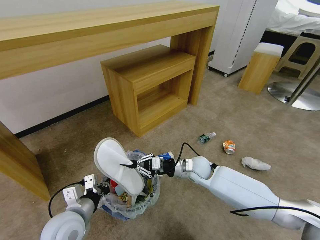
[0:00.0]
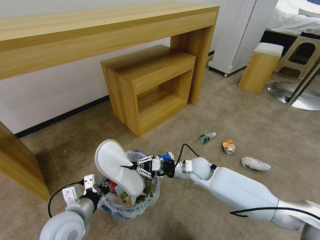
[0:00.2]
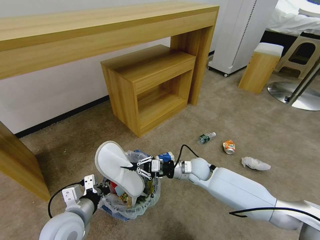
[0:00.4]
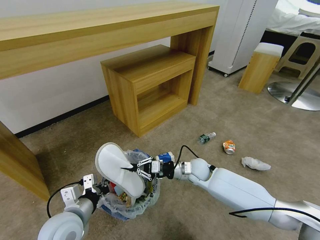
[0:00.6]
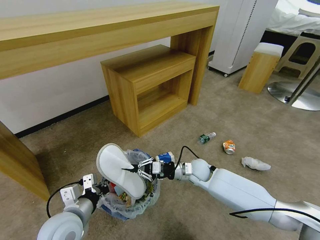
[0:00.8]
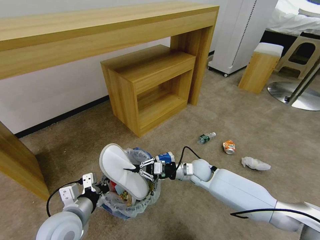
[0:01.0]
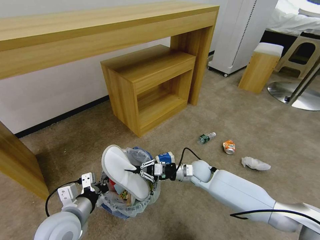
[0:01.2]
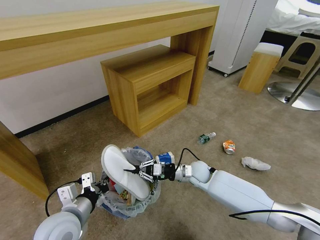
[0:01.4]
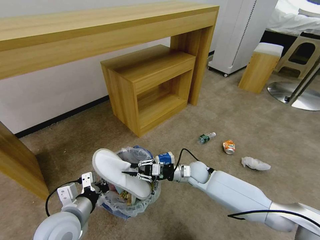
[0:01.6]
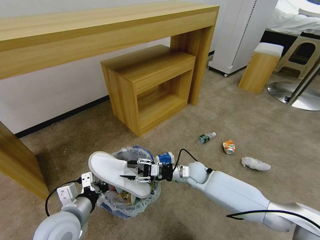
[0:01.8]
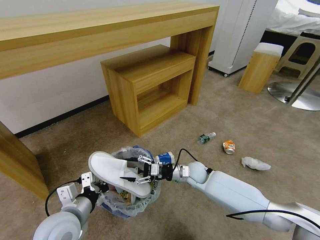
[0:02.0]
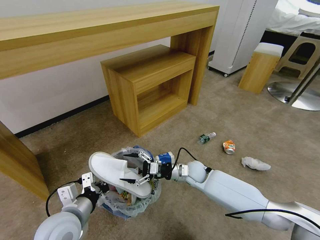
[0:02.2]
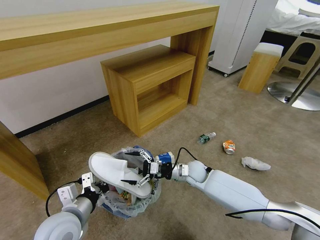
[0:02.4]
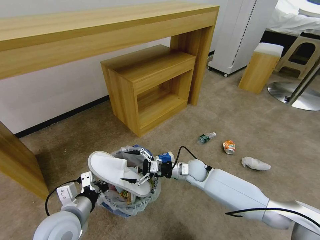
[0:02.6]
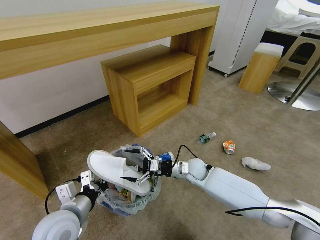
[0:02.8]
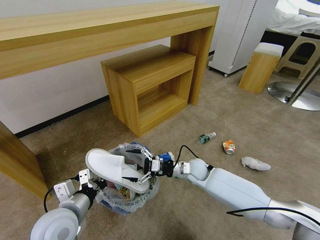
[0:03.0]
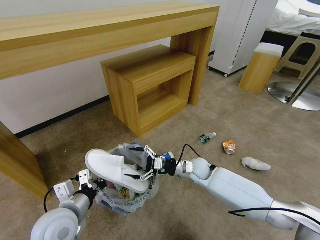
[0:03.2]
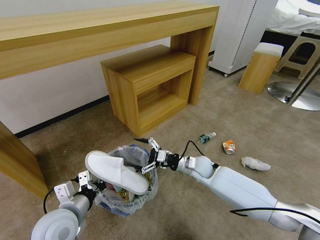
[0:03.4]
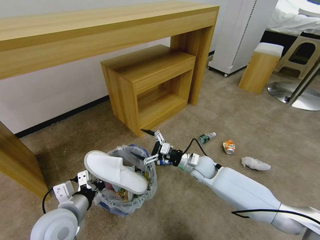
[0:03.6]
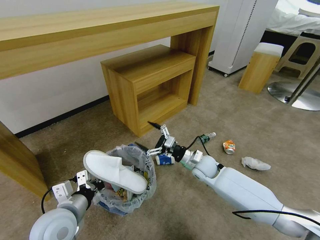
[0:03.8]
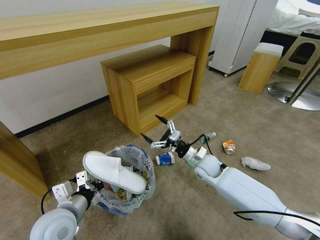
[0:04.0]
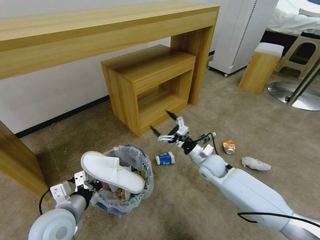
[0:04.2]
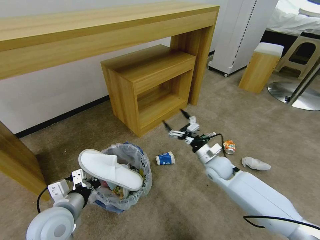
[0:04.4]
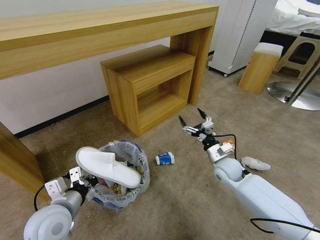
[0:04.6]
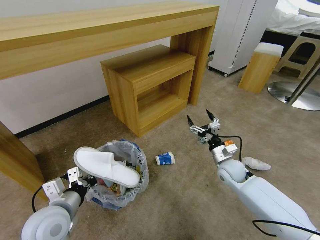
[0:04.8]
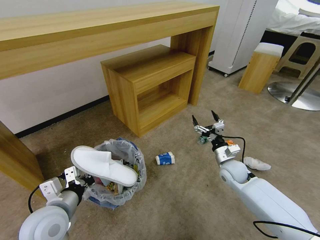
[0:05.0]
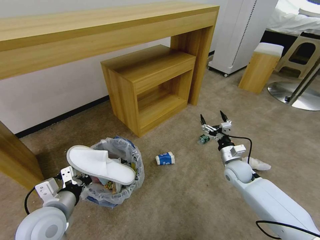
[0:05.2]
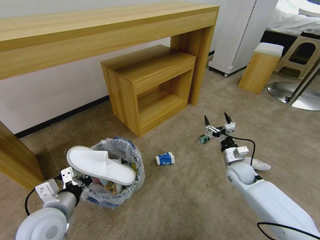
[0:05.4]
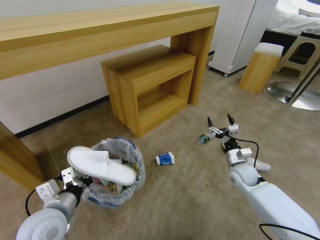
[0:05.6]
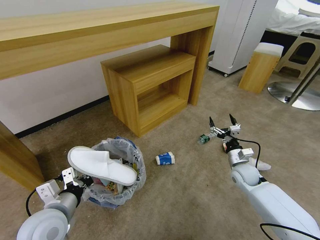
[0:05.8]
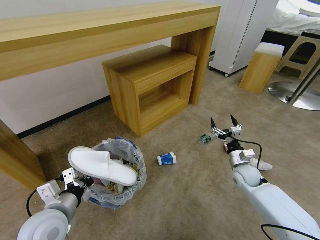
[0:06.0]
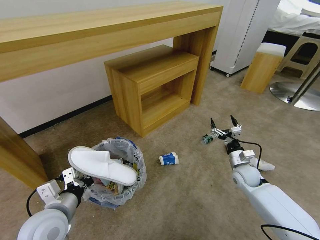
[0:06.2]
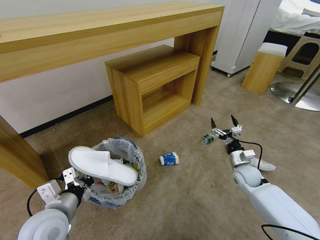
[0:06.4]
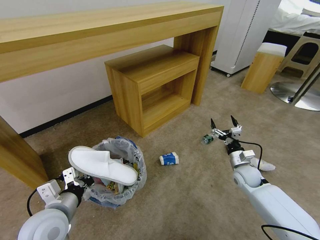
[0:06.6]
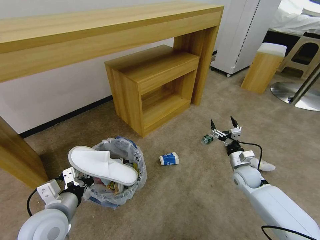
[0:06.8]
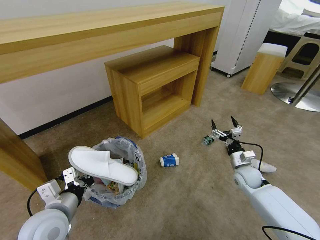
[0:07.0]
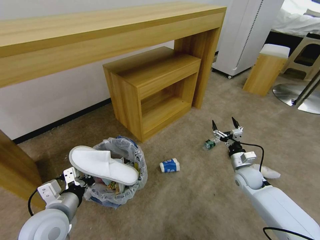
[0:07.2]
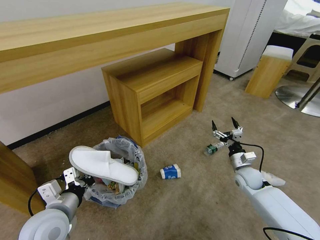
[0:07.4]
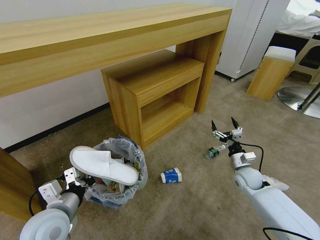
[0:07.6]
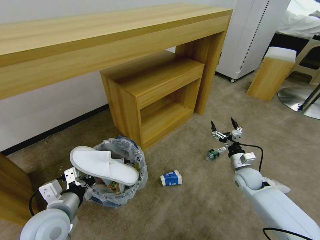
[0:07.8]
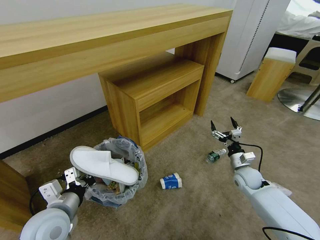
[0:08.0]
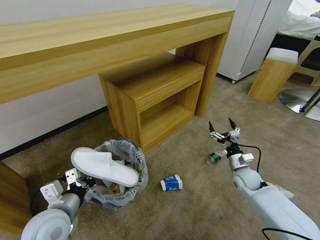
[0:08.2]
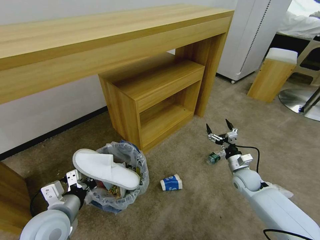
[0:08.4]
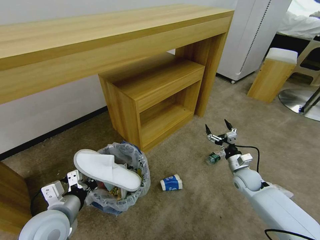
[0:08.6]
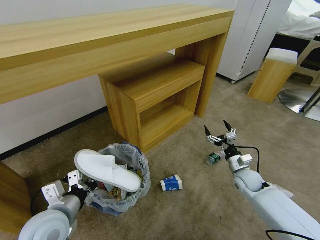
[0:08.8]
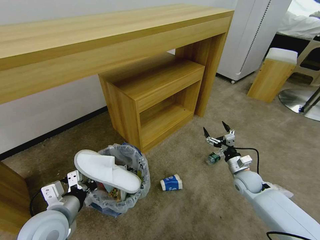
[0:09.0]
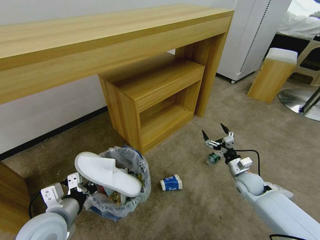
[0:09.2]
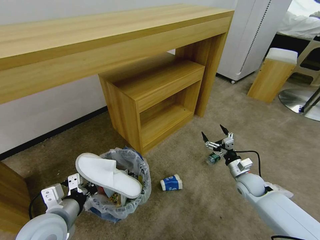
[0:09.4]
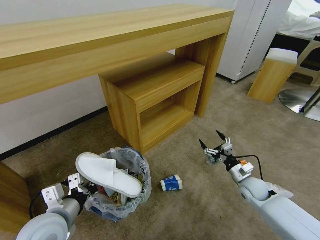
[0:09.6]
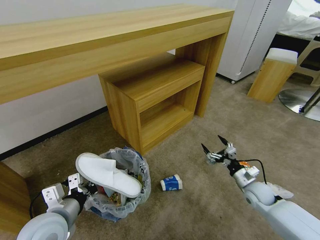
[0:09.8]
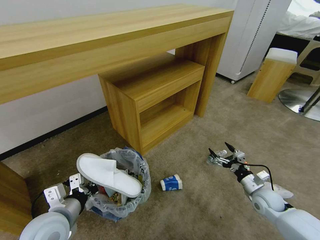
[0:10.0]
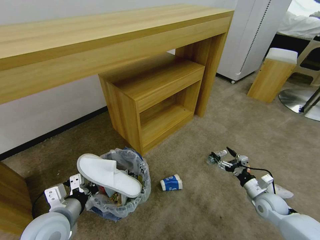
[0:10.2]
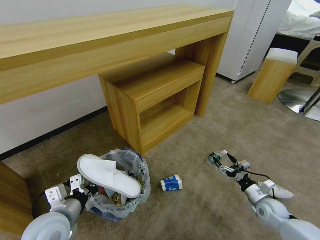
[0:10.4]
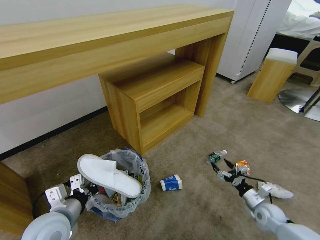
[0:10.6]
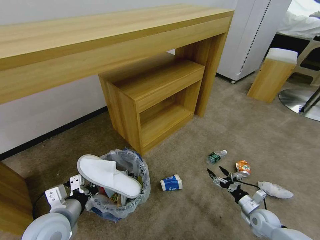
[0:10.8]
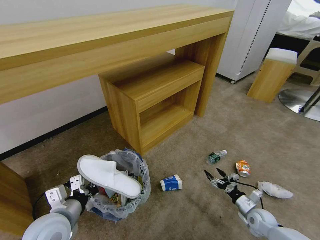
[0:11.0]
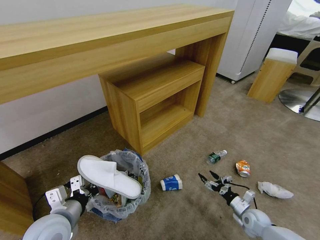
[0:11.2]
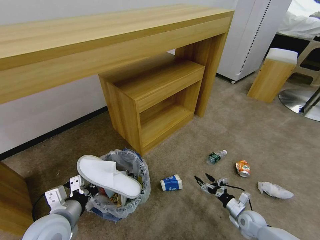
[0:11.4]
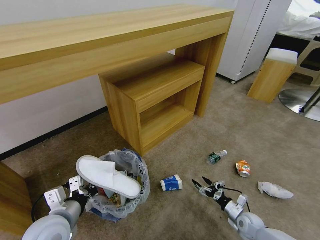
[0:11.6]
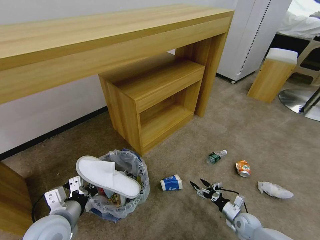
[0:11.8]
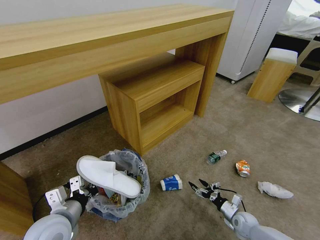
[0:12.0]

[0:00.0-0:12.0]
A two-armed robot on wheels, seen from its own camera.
Task of the whole recording: Pick up the trash bin and place the garbage on the floor into it.
0:00.0 to 0:01.6: The grippers move only a little.
0:01.6 to 0:03.0: The right gripper opens its fingers.
0:03.0 to 0:04.4: The right gripper is displaced to the right by roughly 10 cm.
0:04.4 to 0:06.0: The right gripper heads to the right, covering roughly 10 cm.
0:07.6 to 0:09.0: The grippers move only a little.
0:09.0 to 0:10.4: The right gripper moves backward, to the right and downward, some 15 cm.
0:10.4 to 0:12.0: The right gripper is displaced downward and to the left by roughly 15 cm.

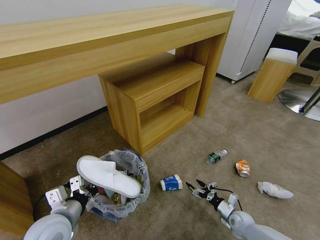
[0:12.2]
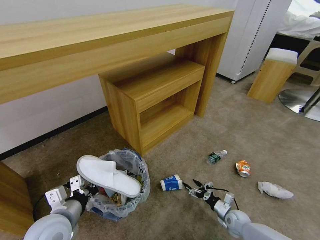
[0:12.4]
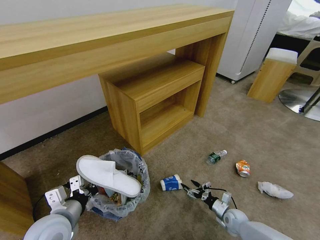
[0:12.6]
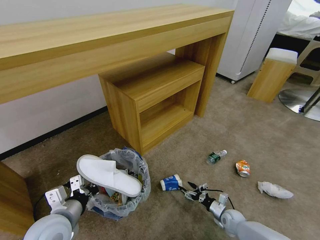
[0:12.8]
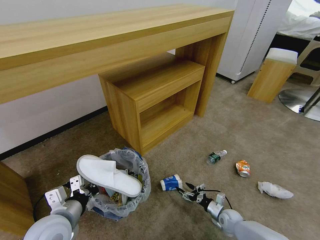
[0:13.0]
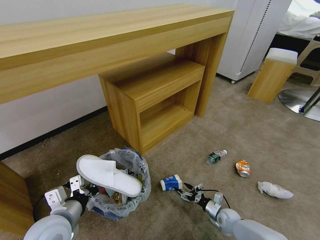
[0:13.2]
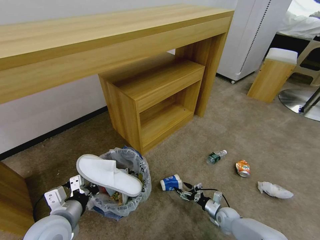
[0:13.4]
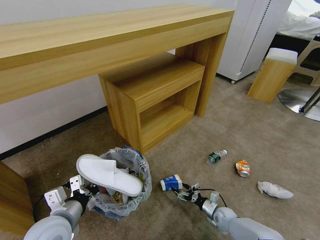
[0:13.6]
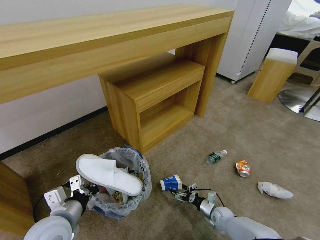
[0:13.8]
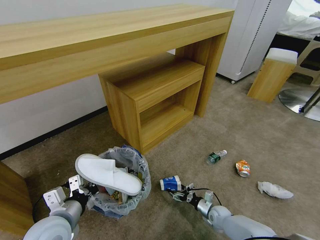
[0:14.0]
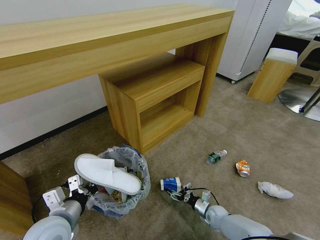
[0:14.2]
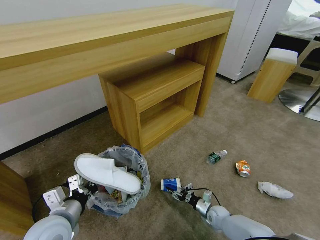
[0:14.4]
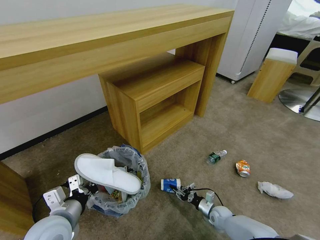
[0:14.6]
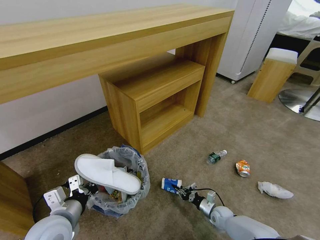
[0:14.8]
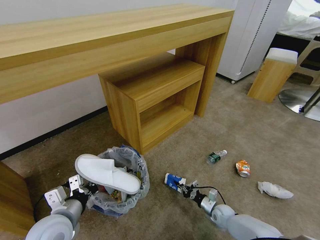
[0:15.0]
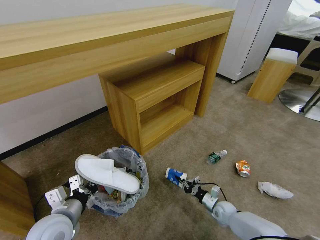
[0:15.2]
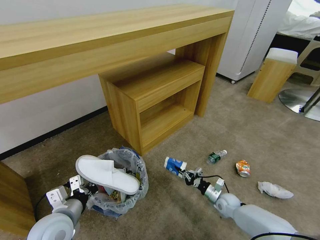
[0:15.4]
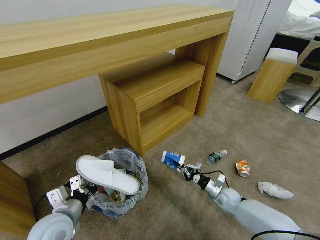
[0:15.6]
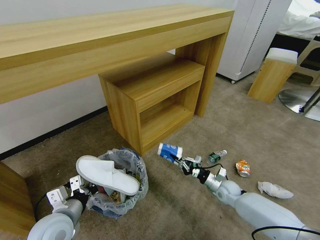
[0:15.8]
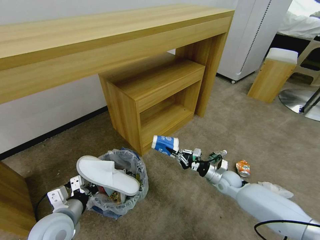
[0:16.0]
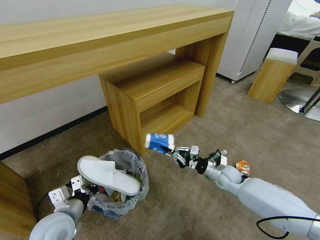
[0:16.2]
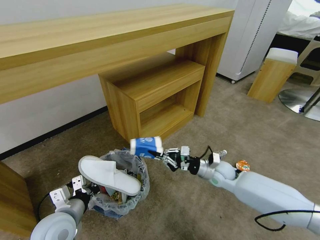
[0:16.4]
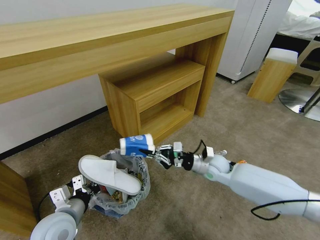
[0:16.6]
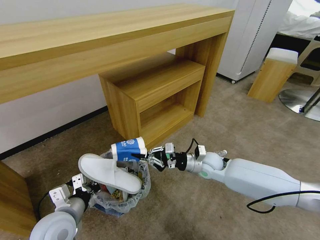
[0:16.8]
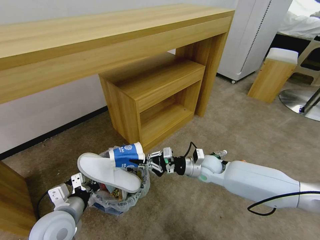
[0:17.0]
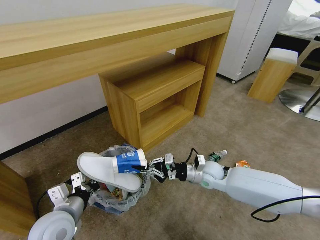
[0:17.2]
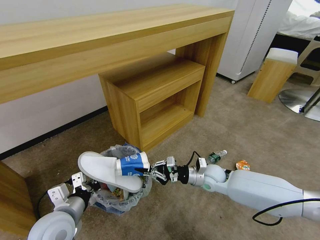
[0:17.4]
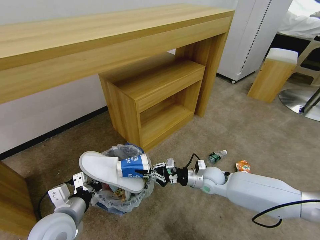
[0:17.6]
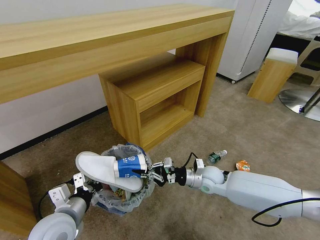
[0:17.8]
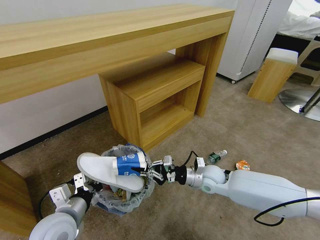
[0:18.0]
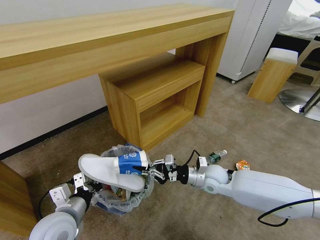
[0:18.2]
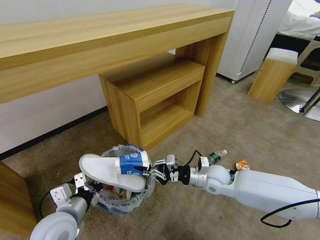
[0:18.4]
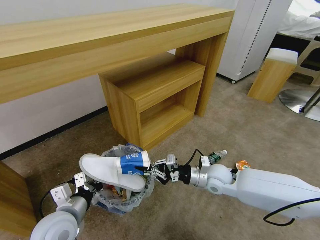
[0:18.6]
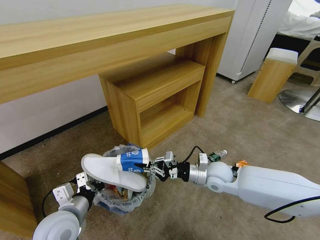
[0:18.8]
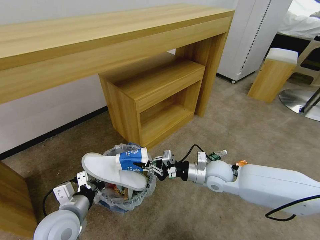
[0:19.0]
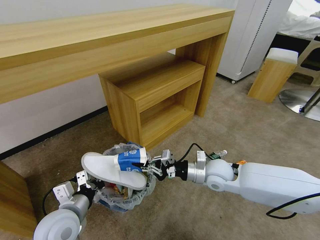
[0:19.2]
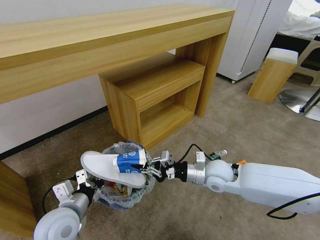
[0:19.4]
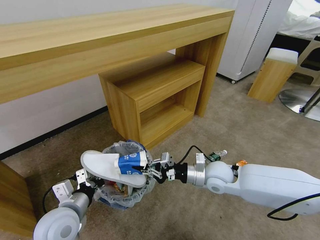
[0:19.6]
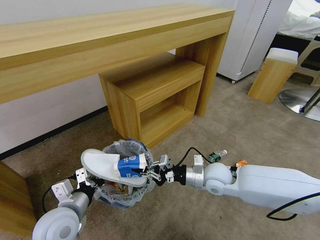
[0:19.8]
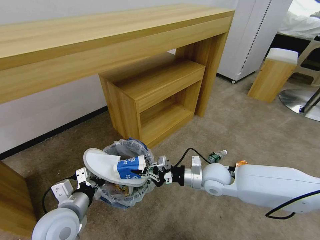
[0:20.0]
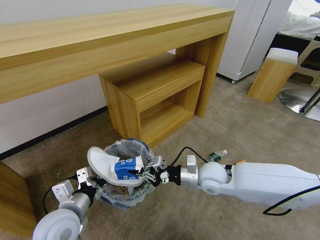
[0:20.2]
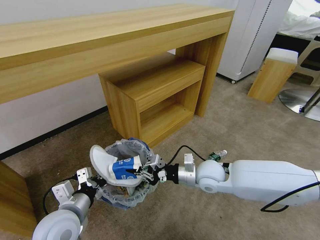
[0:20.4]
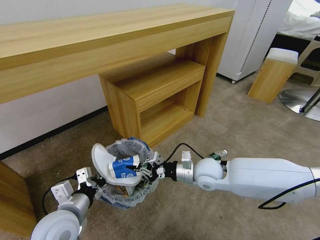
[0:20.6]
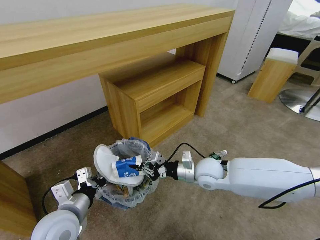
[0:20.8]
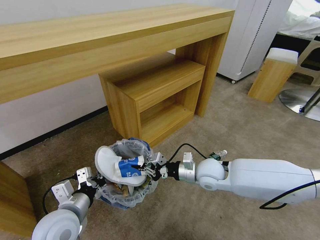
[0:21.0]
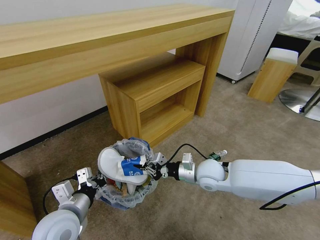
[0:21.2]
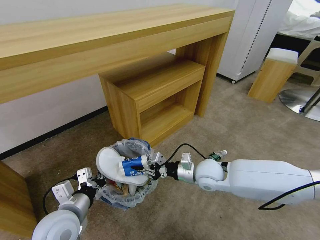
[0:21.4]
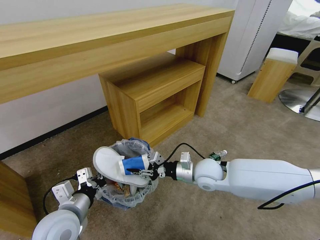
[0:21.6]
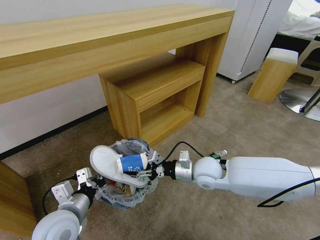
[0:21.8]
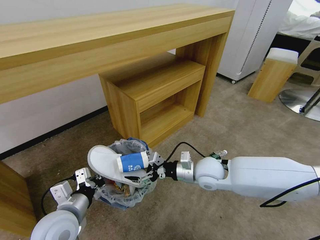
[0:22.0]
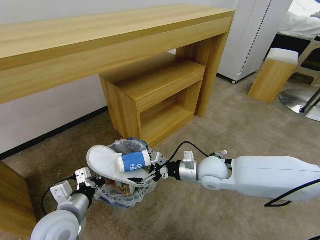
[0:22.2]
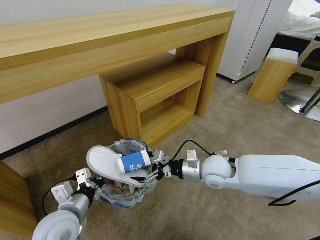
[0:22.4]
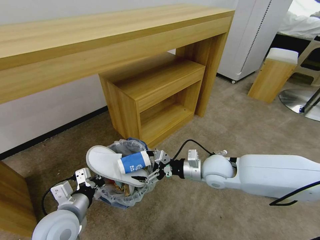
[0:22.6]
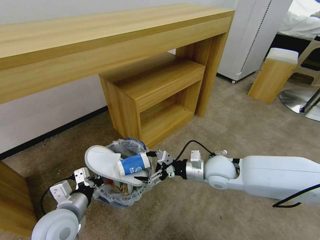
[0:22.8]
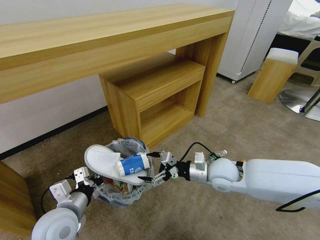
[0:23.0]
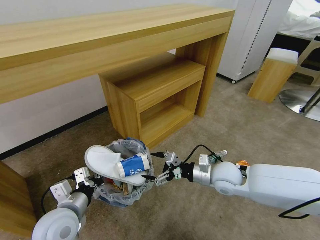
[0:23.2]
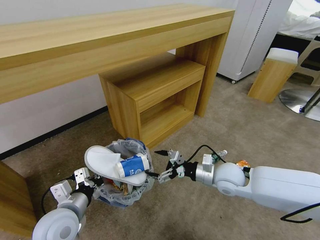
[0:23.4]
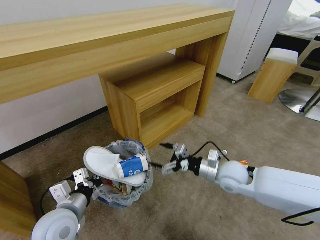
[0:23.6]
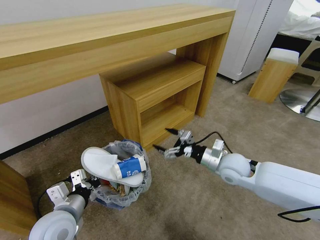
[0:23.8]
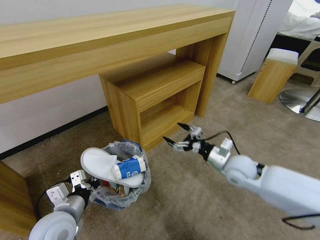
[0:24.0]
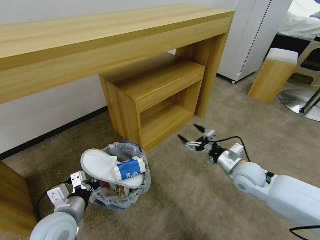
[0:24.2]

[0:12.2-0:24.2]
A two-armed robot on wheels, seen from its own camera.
Task of the whole recording: Pick up the trash bin and place the garbage on the floor into it.
0:12.2 to 0:13.8: The right gripper is displaced to the left by roughly 5 cm.
0:13.8 to 0:15.2: The right gripper closes up.
0:15.2 to 0:16.6: The right gripper moves upward, about 25 cm.
0:16.6 to 0:18.2: The grippers move only a little.
0:18.2 to 0:19.8: There are only small adjustments of the grippers.
0:19.8 to 0:21.2: There are only small adjustments of the grippers.
0:21.2 to 0:22.6: The right gripper opens.
0:22.6 to 0:24.2: The right gripper travels to the right by approximately 10 cm.
